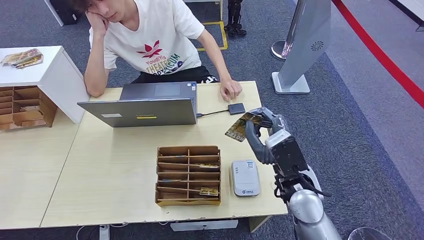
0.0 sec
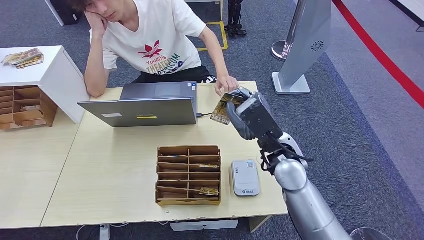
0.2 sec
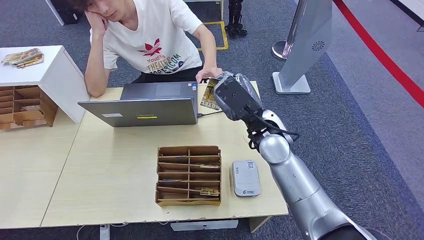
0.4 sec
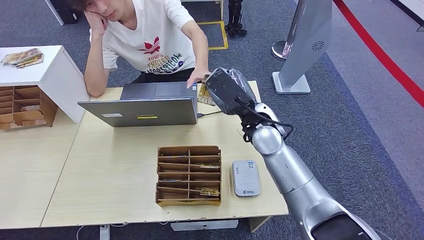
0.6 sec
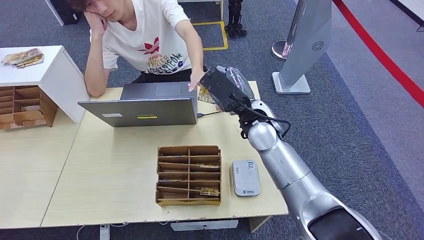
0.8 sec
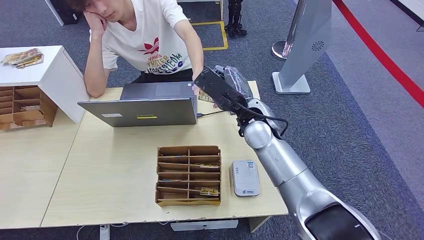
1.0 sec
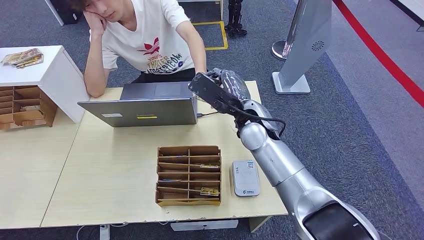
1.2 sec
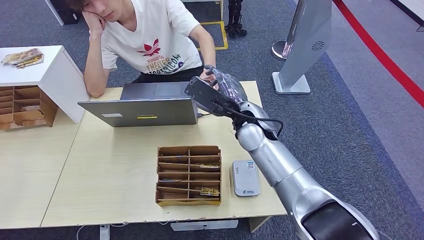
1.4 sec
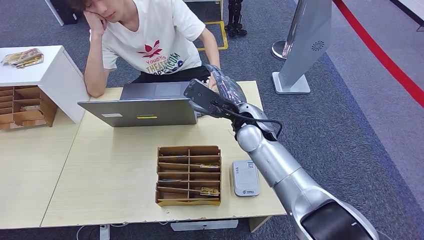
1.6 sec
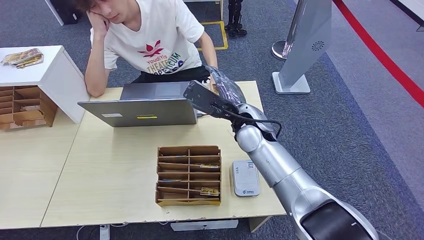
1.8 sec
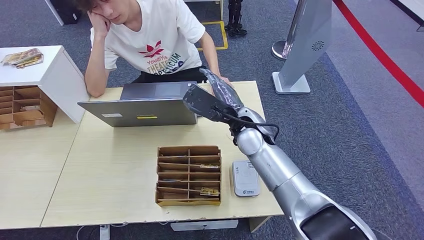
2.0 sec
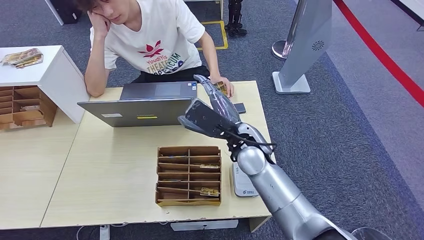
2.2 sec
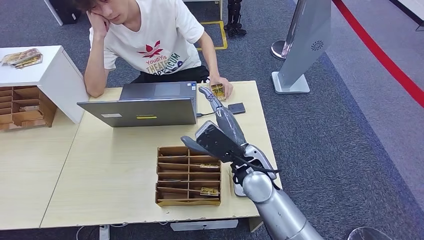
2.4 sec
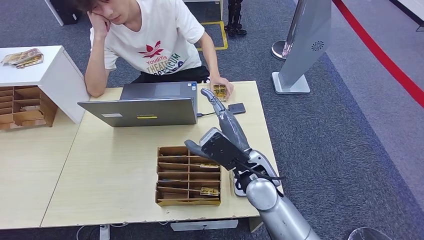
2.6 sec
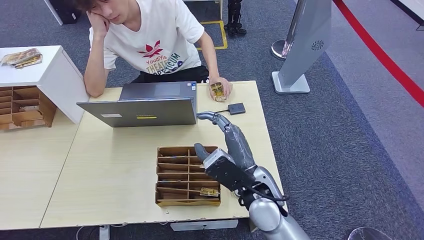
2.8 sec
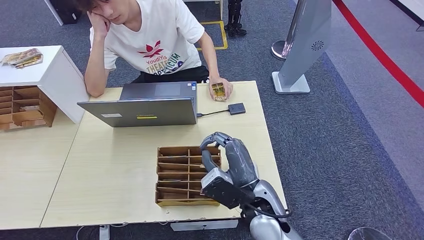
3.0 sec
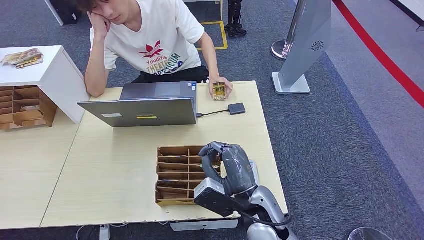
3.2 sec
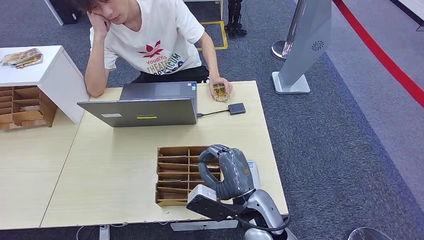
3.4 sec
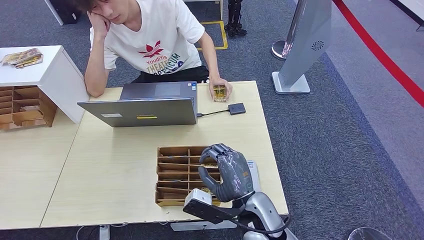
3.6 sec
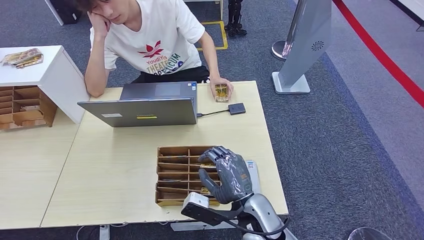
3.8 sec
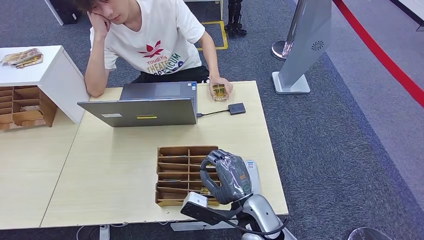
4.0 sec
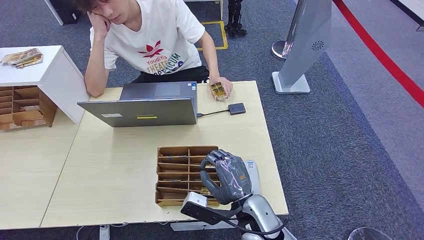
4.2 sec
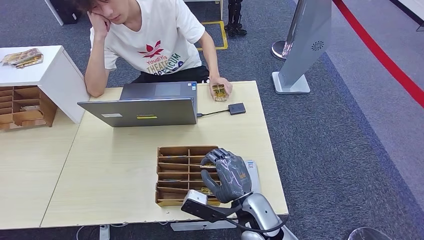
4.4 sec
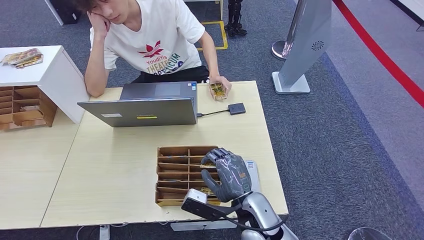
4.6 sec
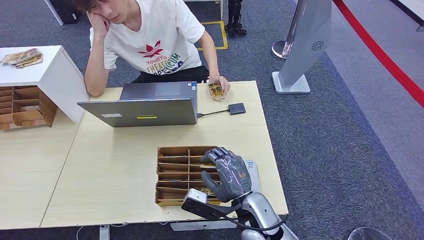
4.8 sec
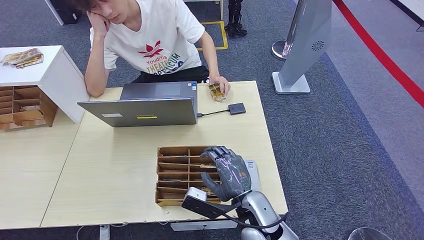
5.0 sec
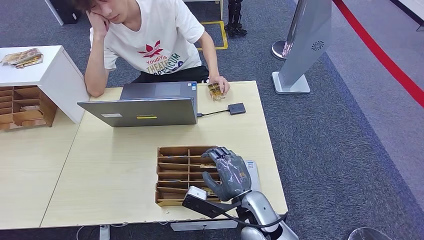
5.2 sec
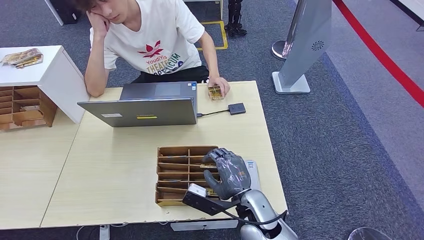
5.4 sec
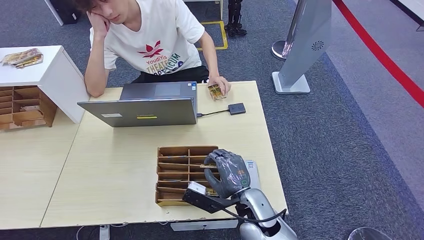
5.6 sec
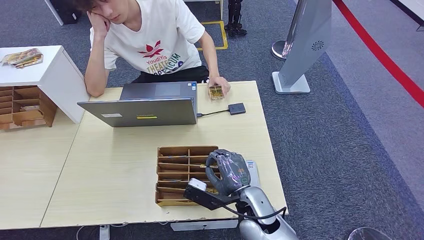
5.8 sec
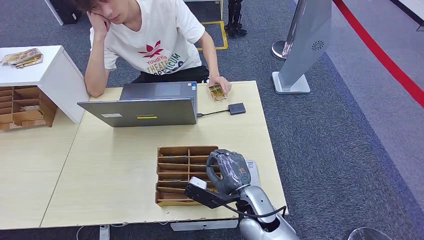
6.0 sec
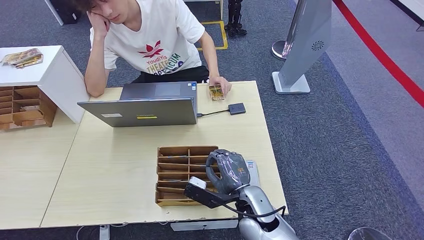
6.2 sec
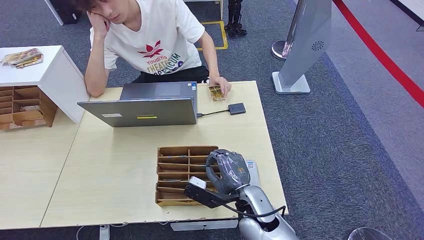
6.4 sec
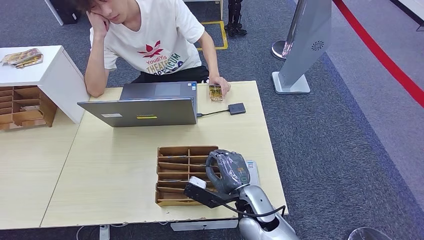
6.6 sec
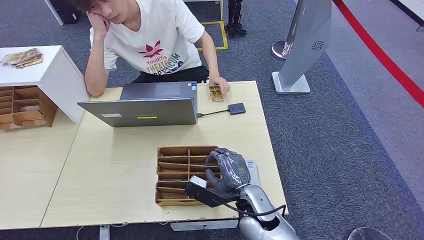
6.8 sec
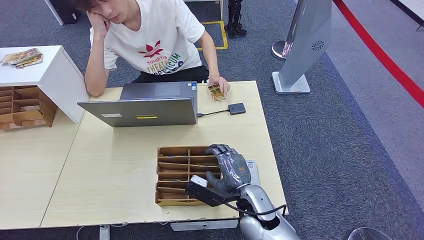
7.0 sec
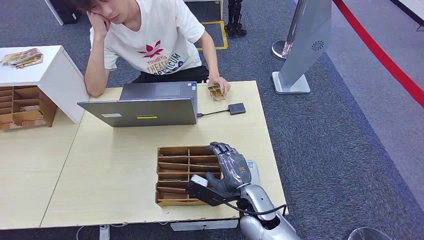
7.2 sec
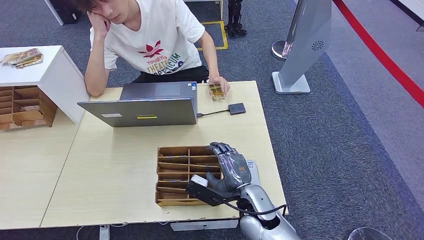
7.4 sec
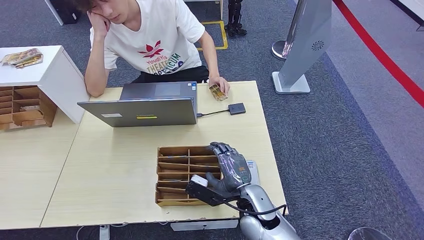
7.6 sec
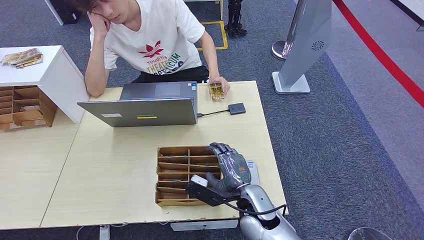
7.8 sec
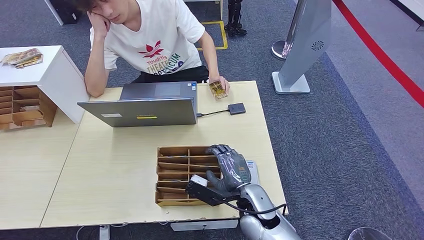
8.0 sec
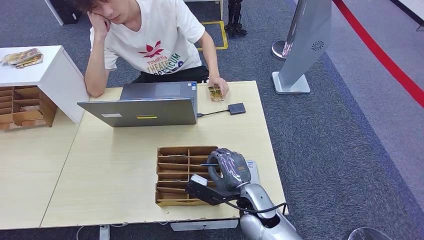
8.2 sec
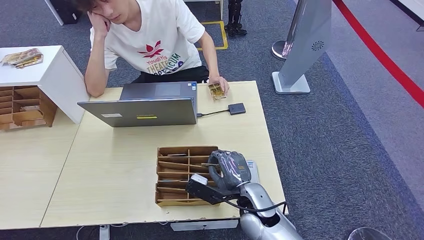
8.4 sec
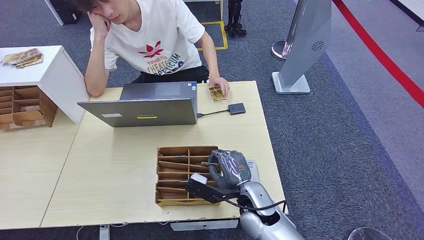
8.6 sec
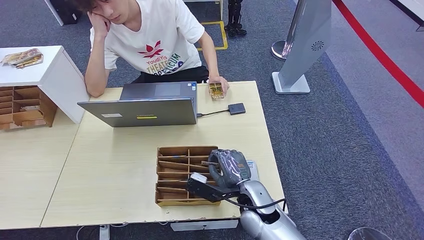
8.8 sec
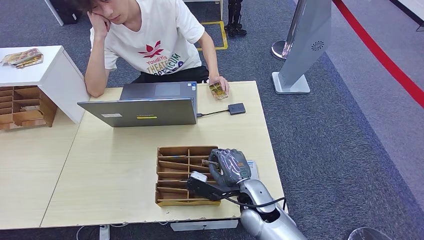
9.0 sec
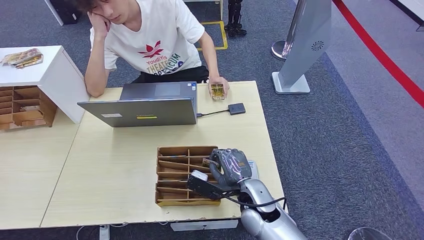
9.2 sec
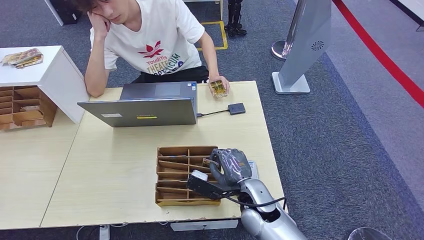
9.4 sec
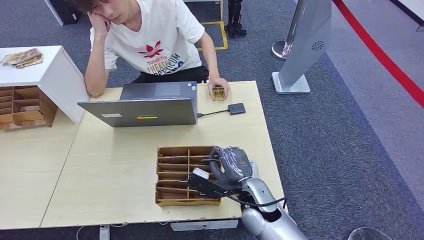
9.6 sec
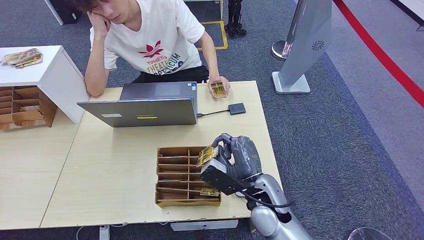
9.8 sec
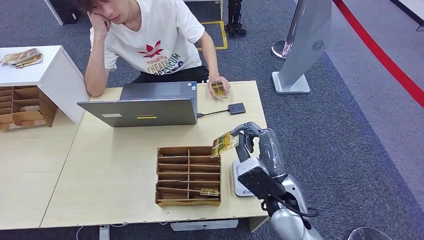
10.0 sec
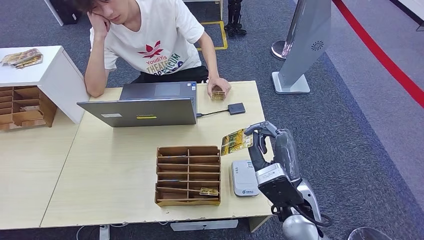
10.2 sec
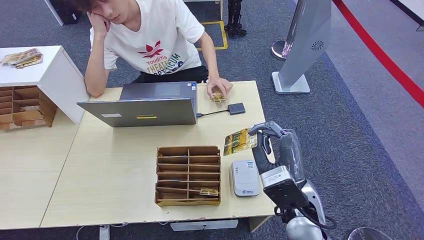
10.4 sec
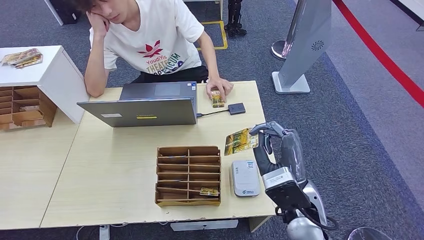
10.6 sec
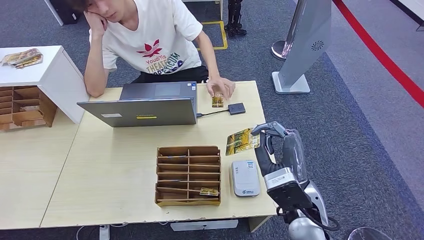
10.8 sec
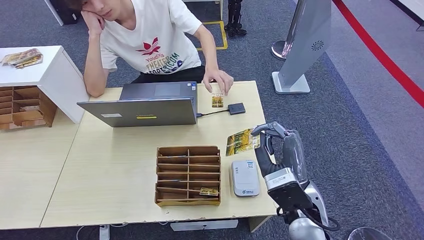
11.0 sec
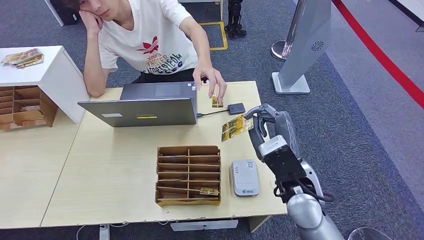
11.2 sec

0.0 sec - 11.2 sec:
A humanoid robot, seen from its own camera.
Step, 1.8 sec - 8.4 sec: Pick up the room key from the key card box.
0.0 sec - 1.6 sec: The right hand goes roughly 15 cm forward and to the left.
1.6 sec - 3.2 sec: The right hand is displaced backward and downward by some 20 cm.
4.8 sec - 6.4 sec: There are only small adjustments of the hands.
6.4 sec - 8.0 sec: Neither hand changes place.
8.0 sec - 9.6 sec: The hands stay close to where they were, moving slightly.
9.6 sec - 11.2 sec: The right hand travels upward and to the right by roughly 15 cm.

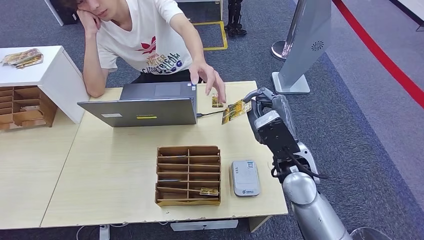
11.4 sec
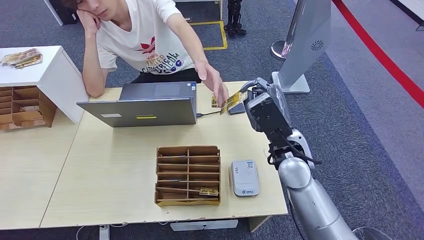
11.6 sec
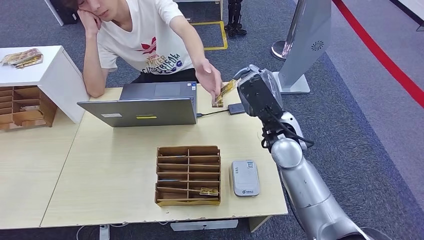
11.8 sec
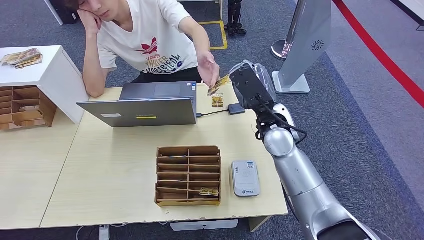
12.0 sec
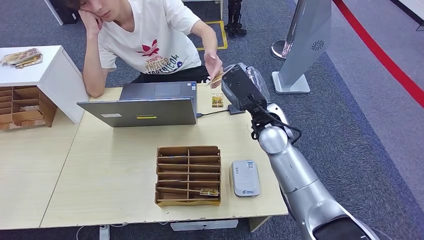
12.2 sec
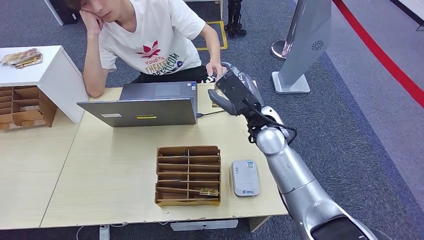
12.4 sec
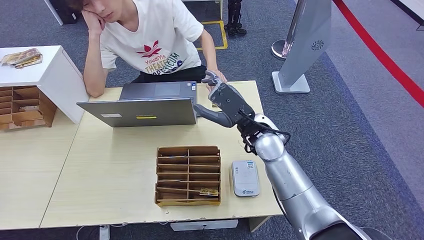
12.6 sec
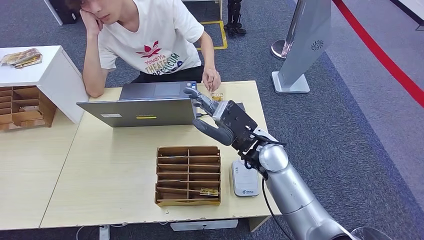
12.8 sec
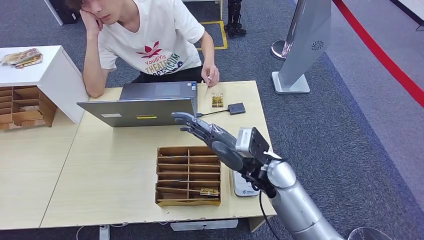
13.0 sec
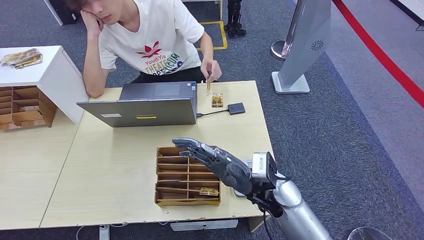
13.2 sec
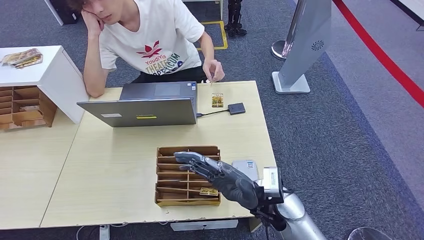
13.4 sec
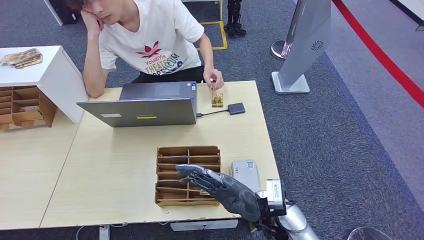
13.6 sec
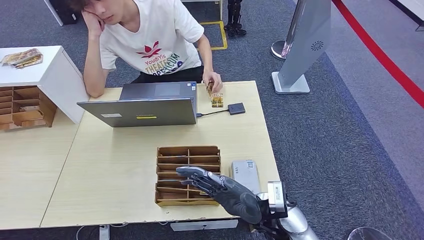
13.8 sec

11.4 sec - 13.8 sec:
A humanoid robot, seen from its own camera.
Step, 11.4 sec - 13.6 sec: Hand the room key to the person.
11.4 sec - 12.6 sec: The right hand goes some 10 cm forward and to the left.
12.6 sec - 13.8 sec: The right hand is displaced backward and downward by some 20 cm.
